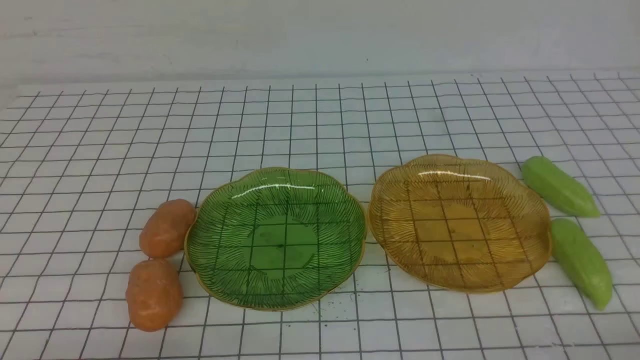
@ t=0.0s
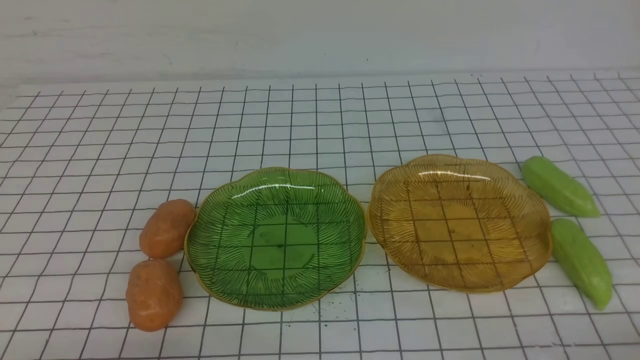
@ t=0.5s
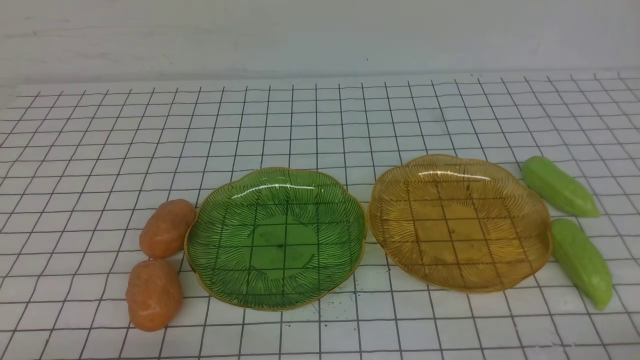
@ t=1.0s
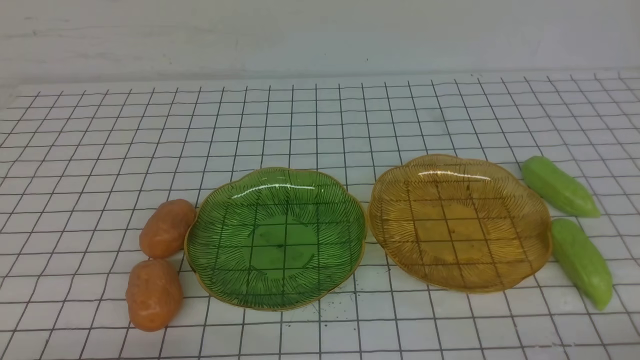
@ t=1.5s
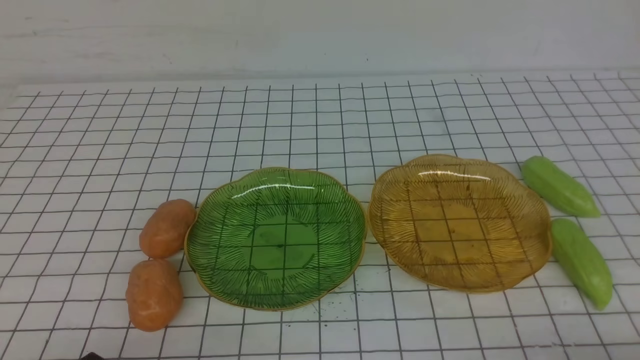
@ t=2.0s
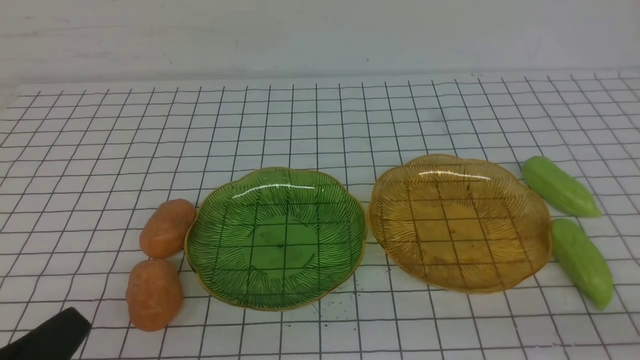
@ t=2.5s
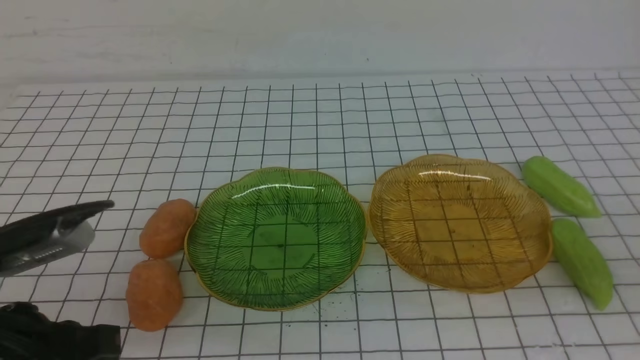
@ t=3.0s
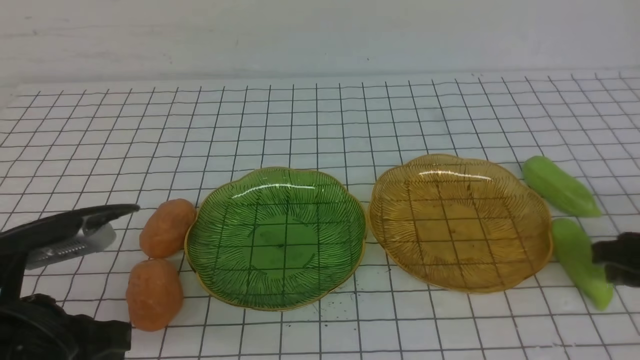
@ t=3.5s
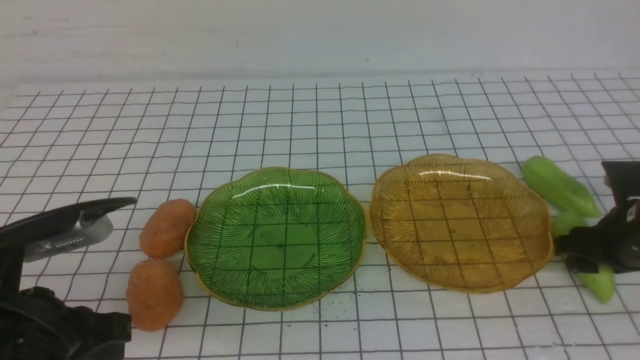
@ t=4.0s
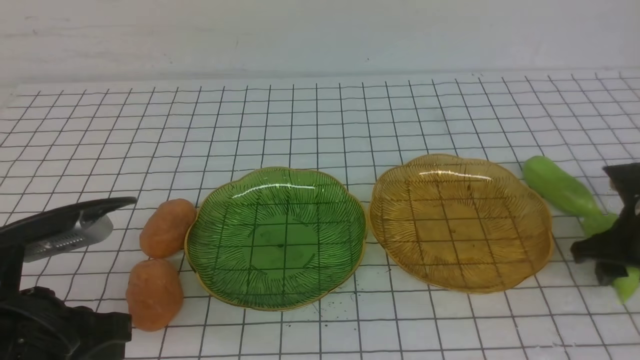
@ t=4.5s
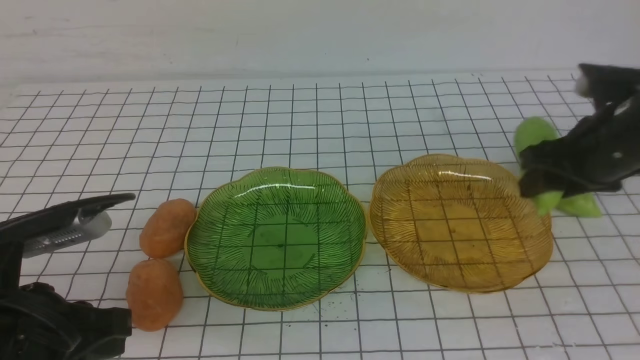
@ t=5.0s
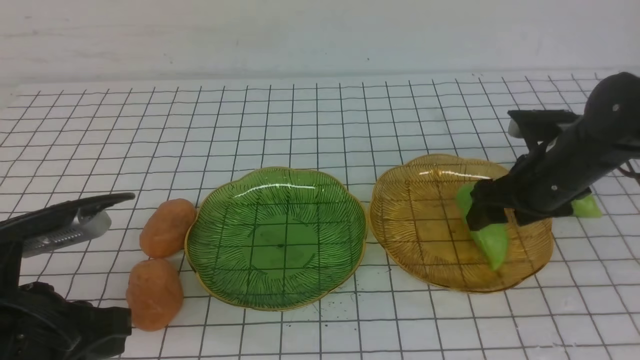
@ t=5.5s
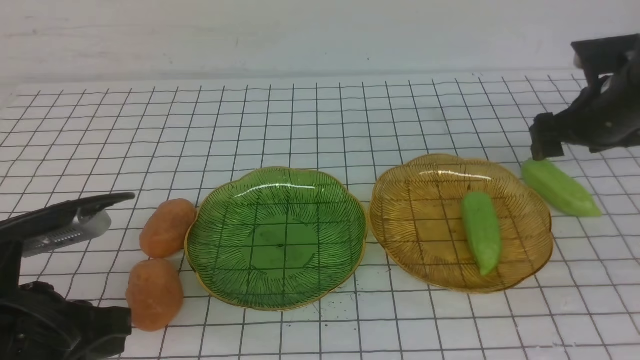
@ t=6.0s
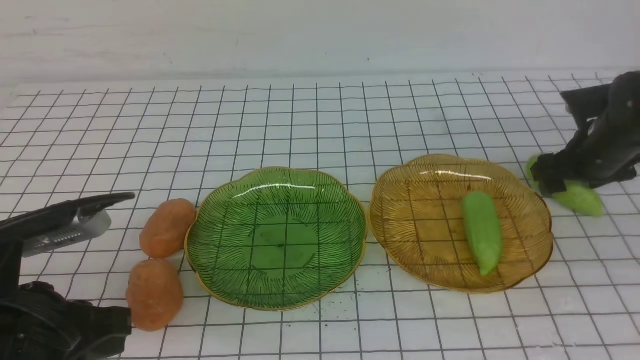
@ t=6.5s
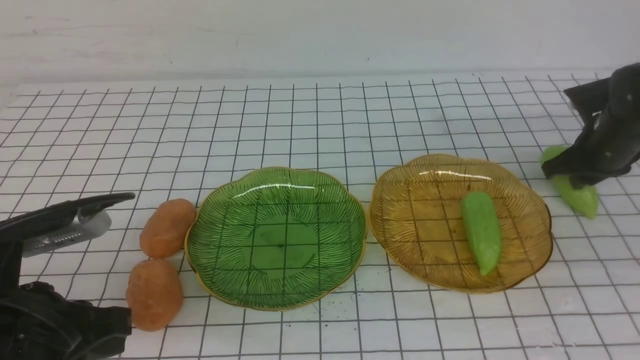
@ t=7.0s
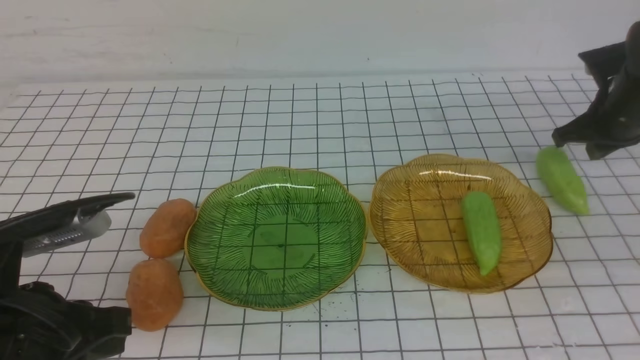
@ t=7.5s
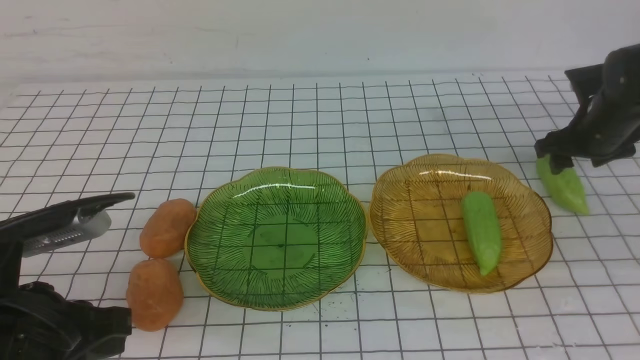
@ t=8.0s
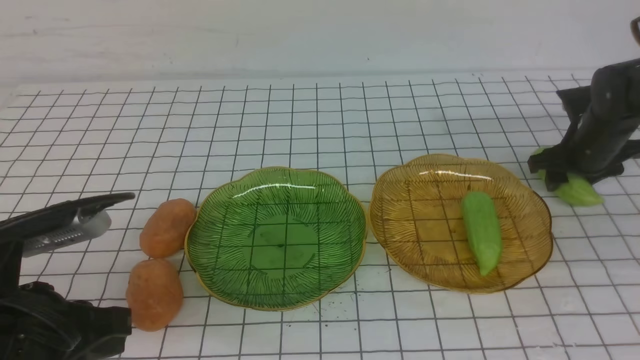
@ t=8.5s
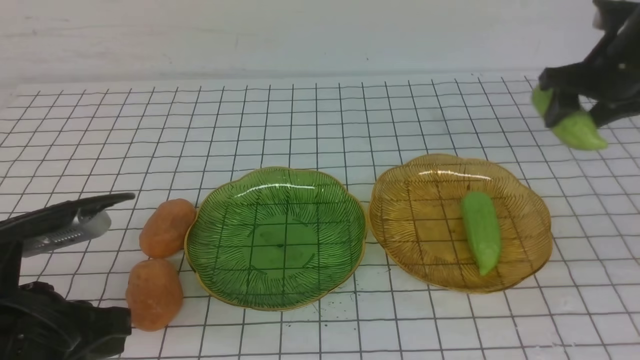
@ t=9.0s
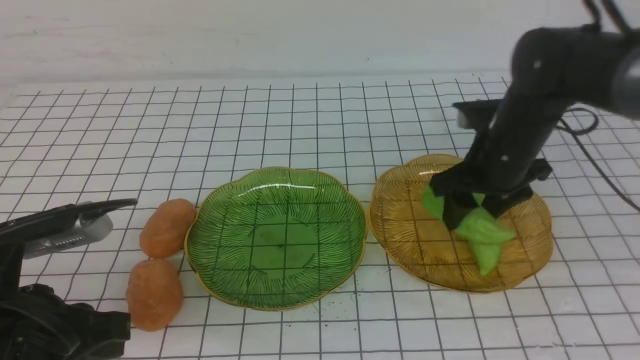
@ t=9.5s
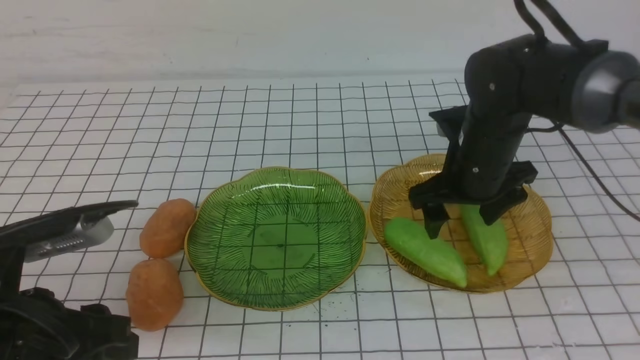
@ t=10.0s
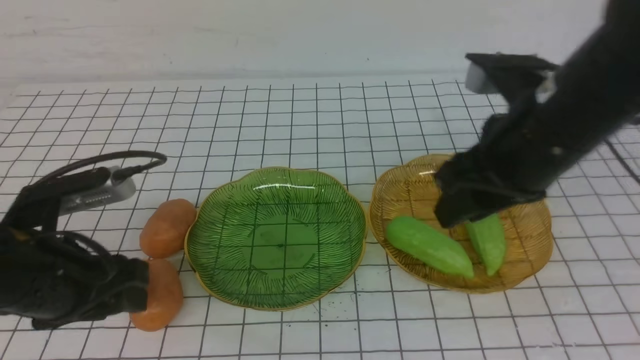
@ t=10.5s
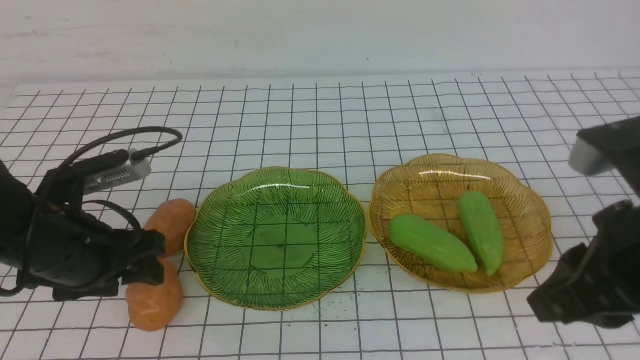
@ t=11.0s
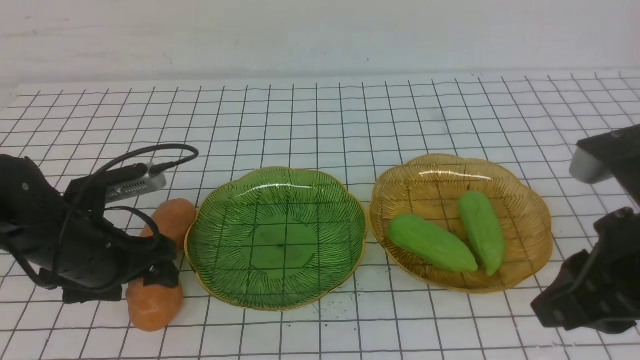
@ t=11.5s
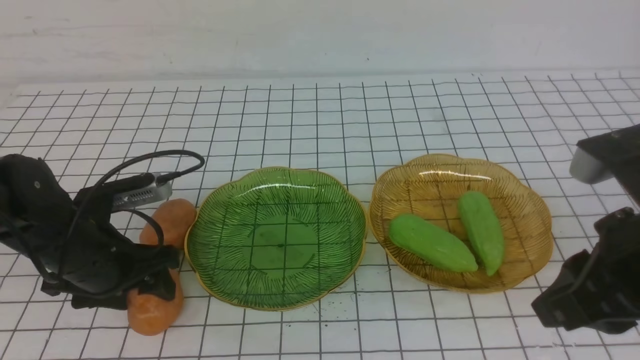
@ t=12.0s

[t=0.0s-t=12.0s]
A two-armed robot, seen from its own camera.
Step, t=0.0s to t=5.5s: use the right arm to grab a chayote and put it into the right plate.
Step, t=6.0s to t=9.5s: use the right arm to grab a chayote and put it into the right plate.
t=2.0s to t=4.0s: The left gripper is displaced forward and upward by about 10 cm. Meanwhile the right gripper is displaced forward by roughly 25 cm, and opens.
t=4.0s to t=6.0s: The right gripper shifts some 10 cm forward and upward.
t=6.0s to t=8.0s: The right gripper heads forward, covering roughly 5 cm, and closes its fingers.
t=8.0s to t=10.0s: The left gripper opens its fingers. Meanwhile the right gripper travels to the left and backward by approximately 20 cm.
t=10.0s to t=12.0s: The left gripper moves forward and downward, roughly 15 cm. Meanwhile the right gripper is displaced backward and upward by approximately 20 cm, and closes.

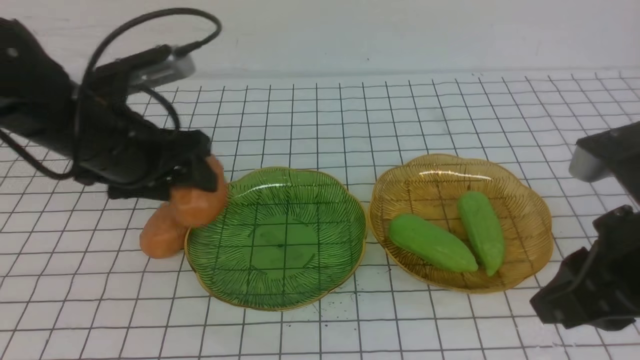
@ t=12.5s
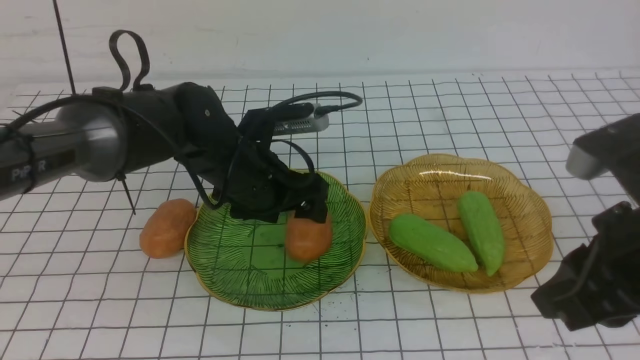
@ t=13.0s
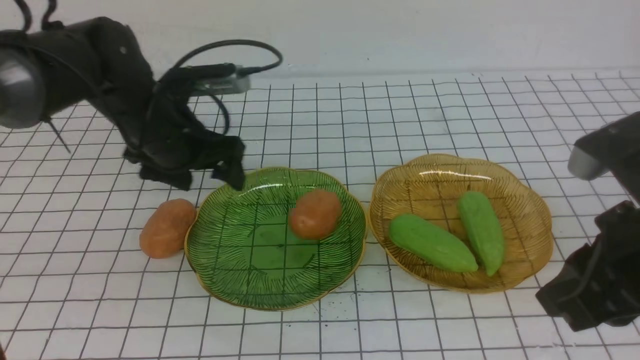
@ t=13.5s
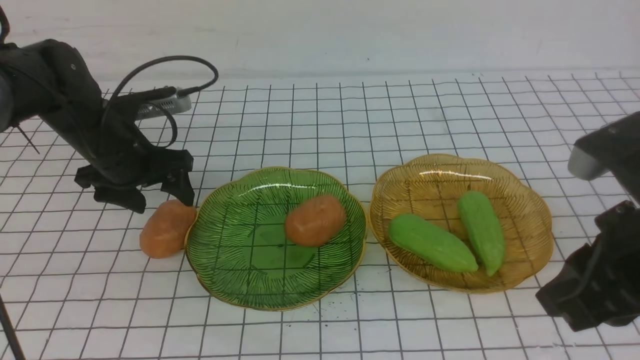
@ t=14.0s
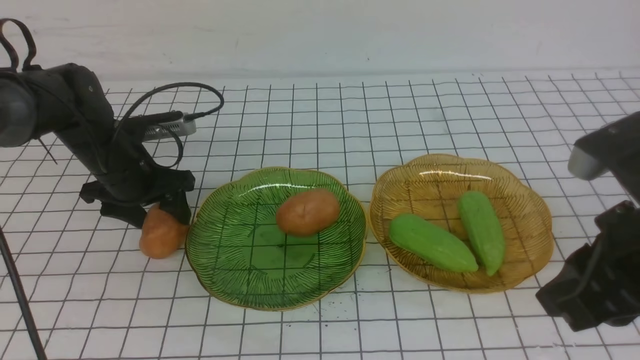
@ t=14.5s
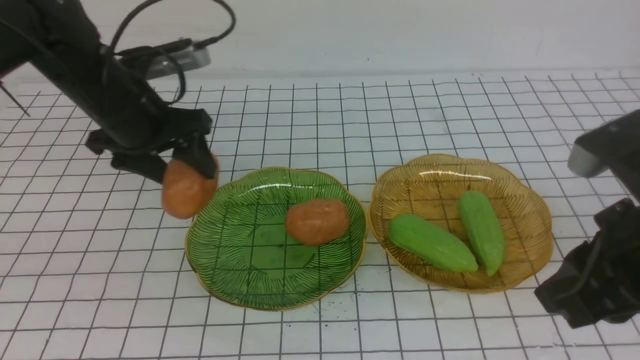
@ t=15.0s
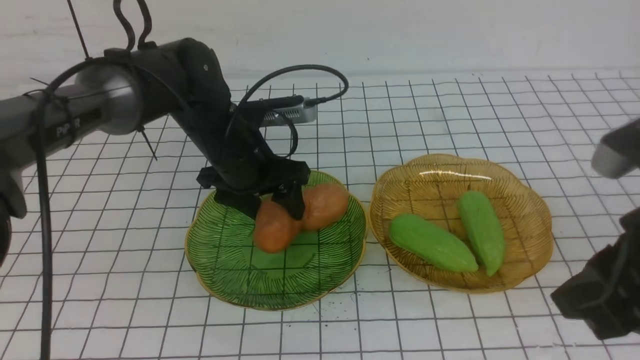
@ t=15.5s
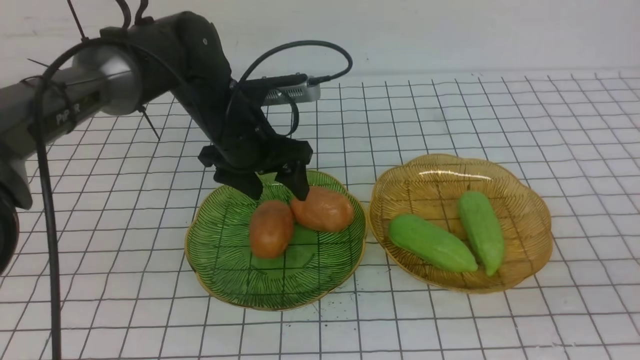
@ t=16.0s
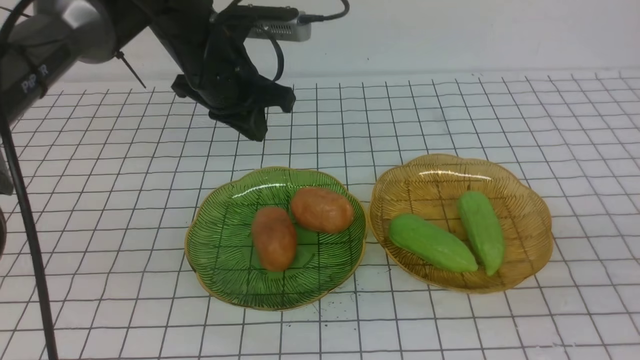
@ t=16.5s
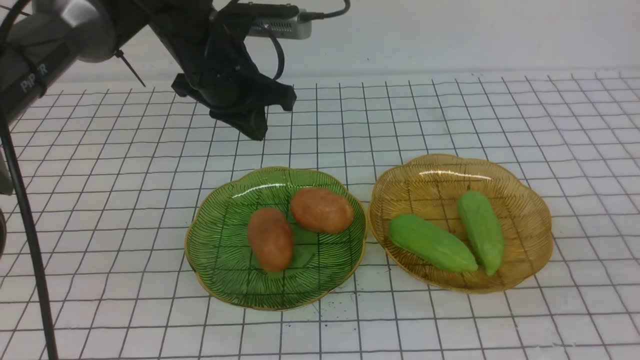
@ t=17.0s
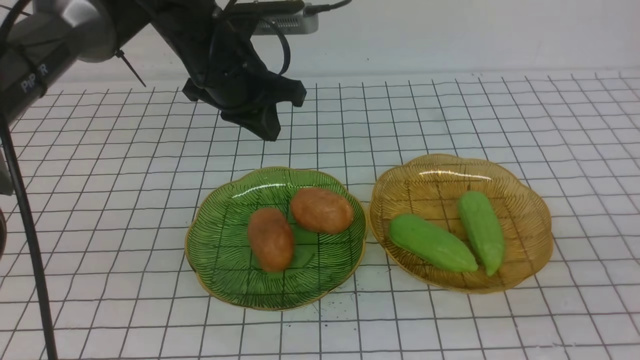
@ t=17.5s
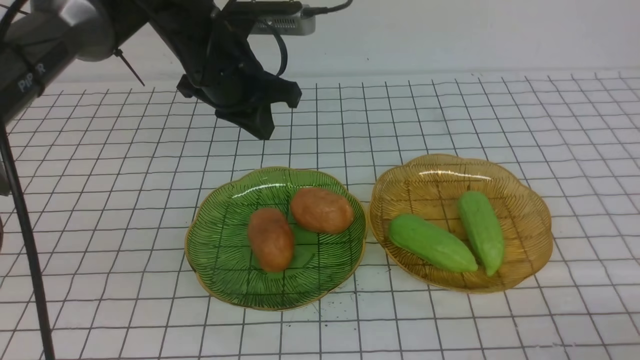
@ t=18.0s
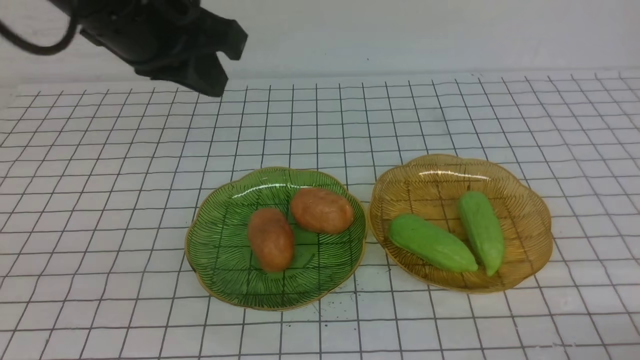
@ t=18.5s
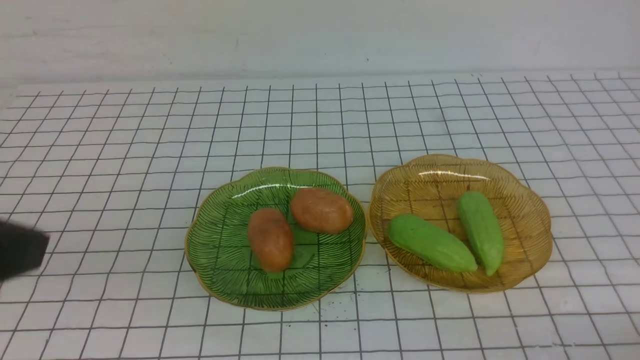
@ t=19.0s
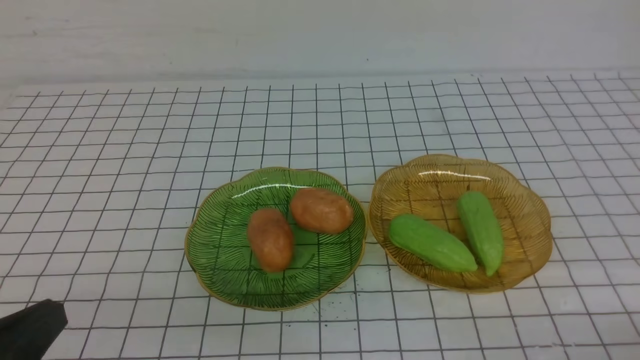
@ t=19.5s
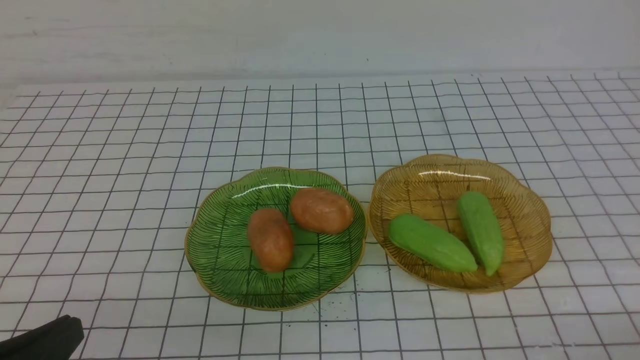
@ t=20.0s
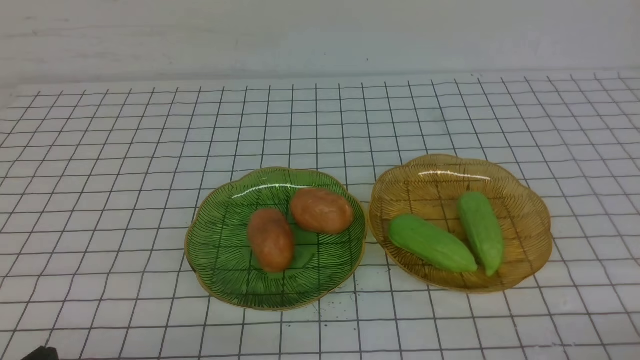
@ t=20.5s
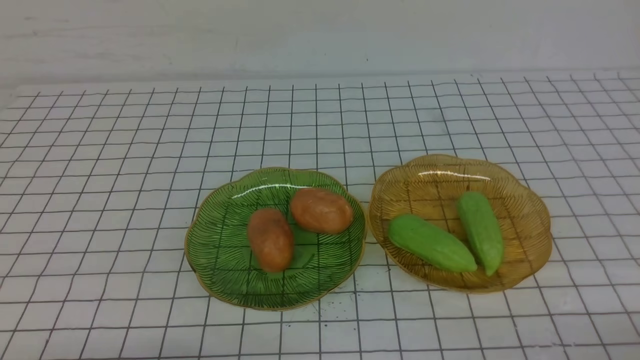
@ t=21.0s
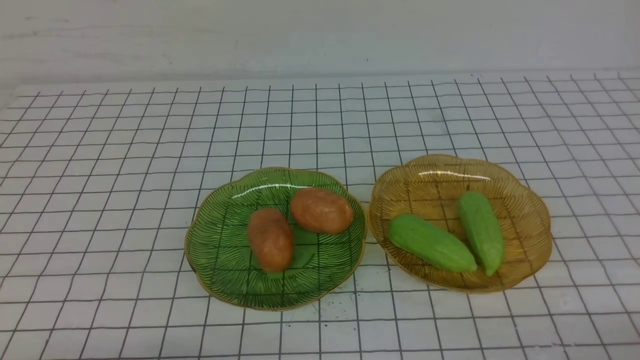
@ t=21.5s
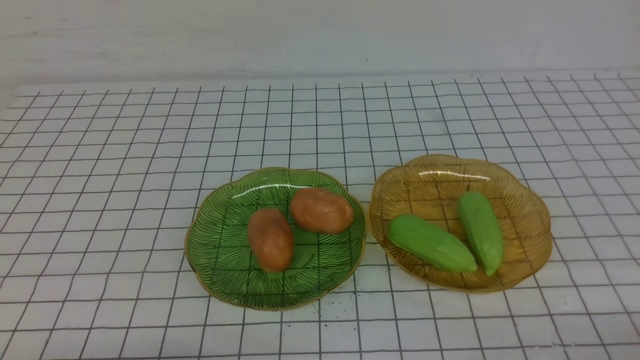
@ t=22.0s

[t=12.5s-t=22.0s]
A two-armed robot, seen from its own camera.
Step, t=12.5s to t=16.0s: Grab a potato with your left arm and put it on the left plate.
t=12.5s to t=14.5s: The left gripper travels forward and downward by some 15 cm, and goes to the right and returns, roughly 10 cm each way.
t=14.5s to t=16.5s: The right gripper travels backward and to the right by roughly 10 cm. The left gripper travels to the right and upward by roughly 15 cm, and closes its fingers.
t=16.5s to t=18.0s: The right gripper goes approximately 10 cm downward.
t=18.0s to t=20.0s: The left gripper goes roughly 35 cm backward.
t=20.0s to t=22.0s: The left gripper is displaced downward by about 10 cm.
